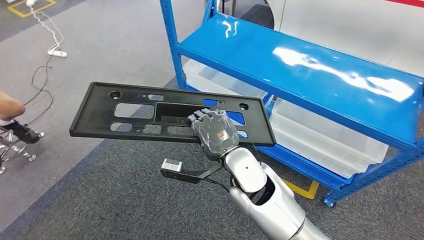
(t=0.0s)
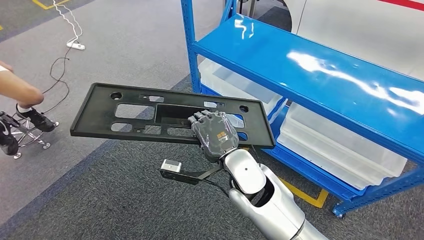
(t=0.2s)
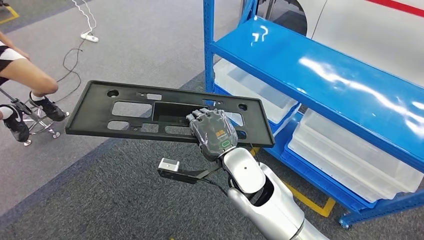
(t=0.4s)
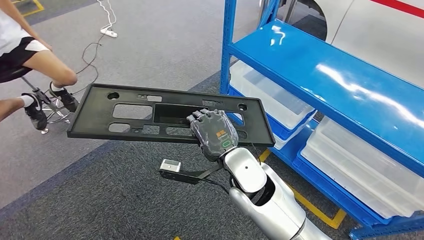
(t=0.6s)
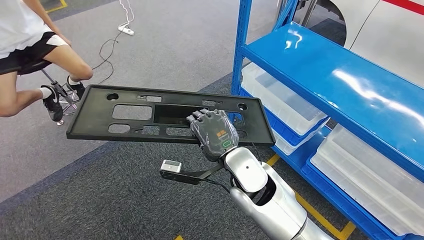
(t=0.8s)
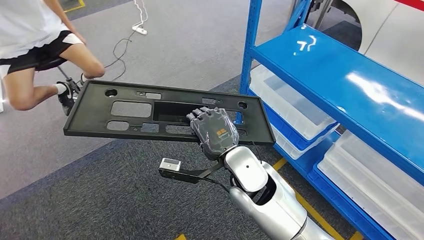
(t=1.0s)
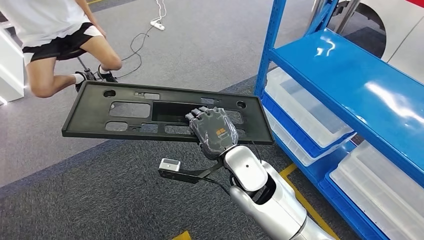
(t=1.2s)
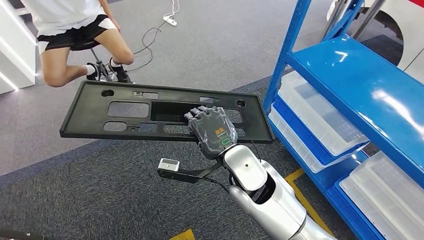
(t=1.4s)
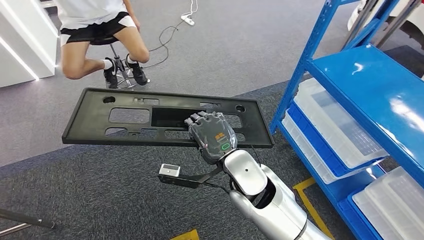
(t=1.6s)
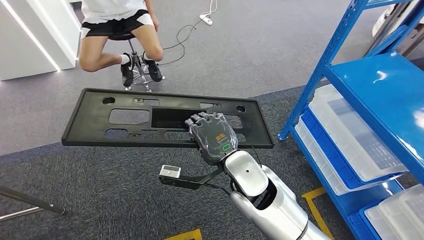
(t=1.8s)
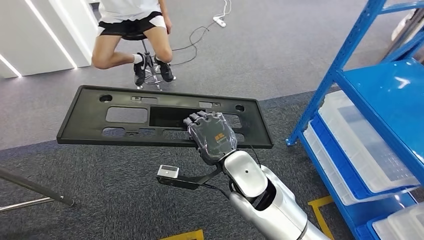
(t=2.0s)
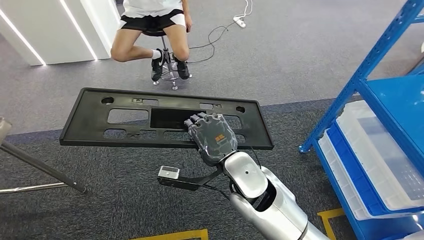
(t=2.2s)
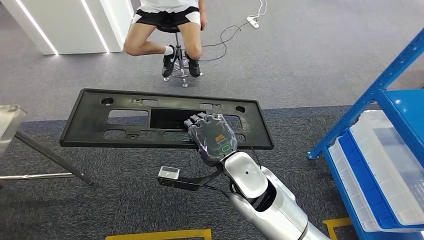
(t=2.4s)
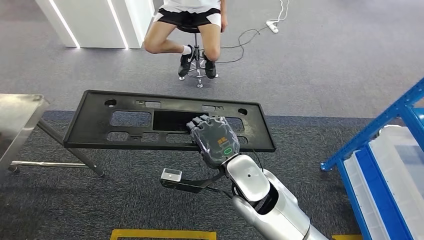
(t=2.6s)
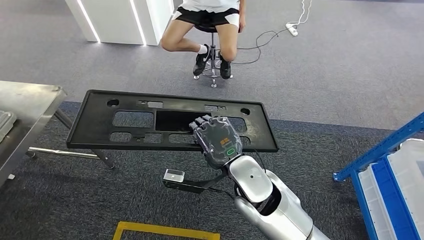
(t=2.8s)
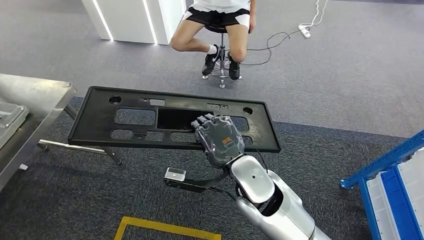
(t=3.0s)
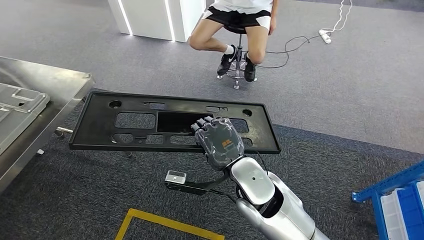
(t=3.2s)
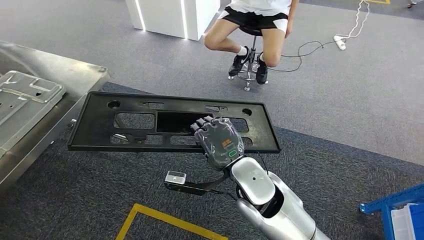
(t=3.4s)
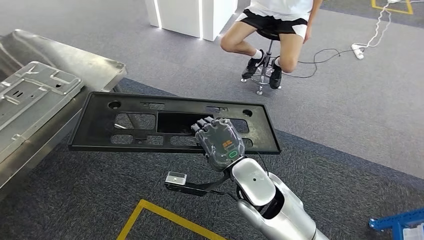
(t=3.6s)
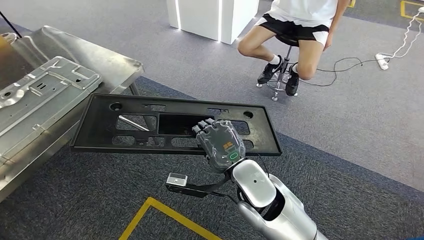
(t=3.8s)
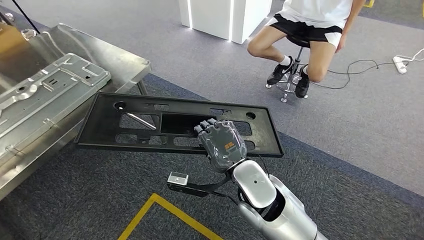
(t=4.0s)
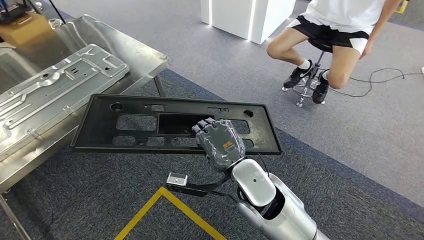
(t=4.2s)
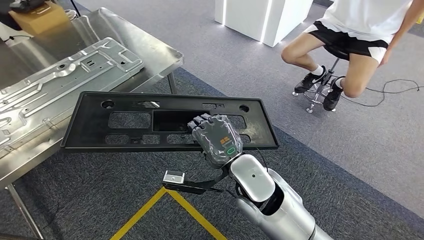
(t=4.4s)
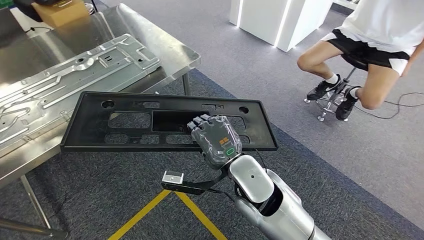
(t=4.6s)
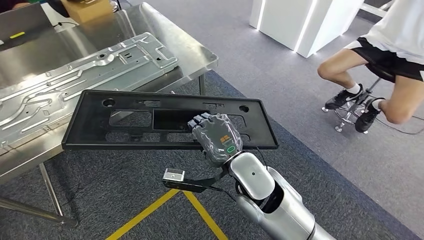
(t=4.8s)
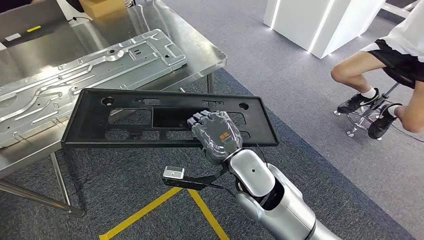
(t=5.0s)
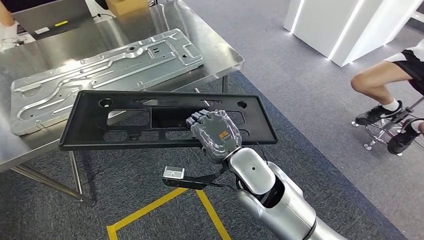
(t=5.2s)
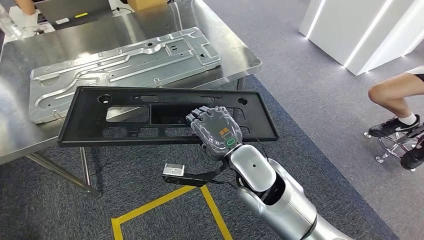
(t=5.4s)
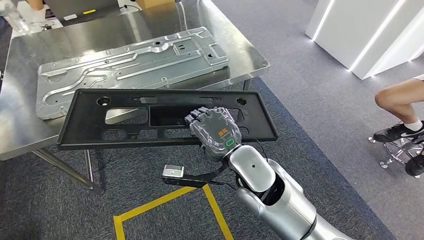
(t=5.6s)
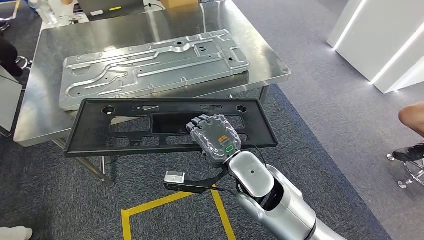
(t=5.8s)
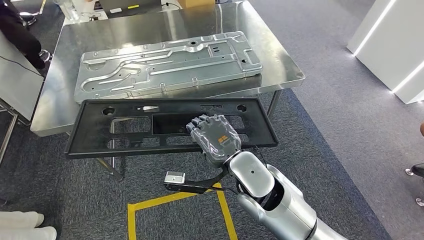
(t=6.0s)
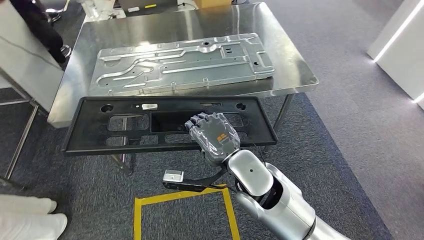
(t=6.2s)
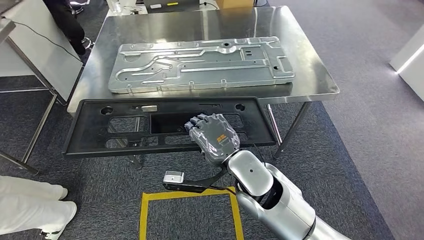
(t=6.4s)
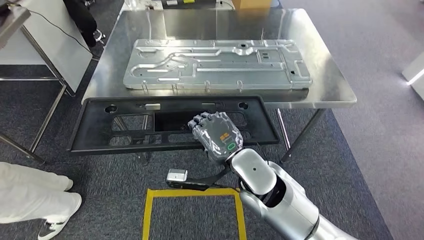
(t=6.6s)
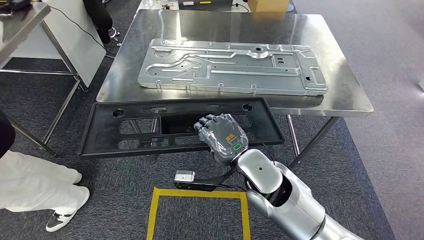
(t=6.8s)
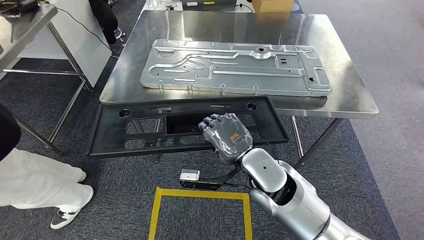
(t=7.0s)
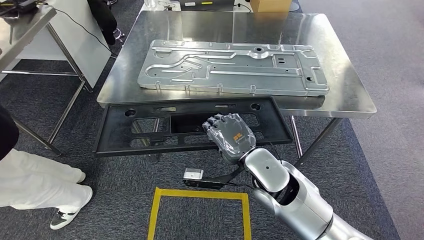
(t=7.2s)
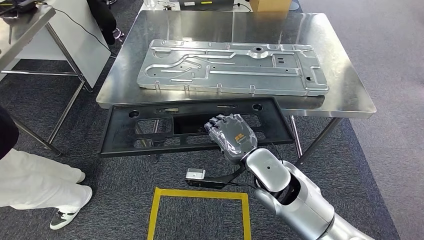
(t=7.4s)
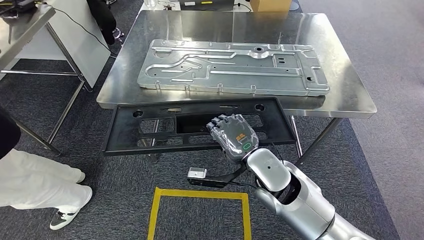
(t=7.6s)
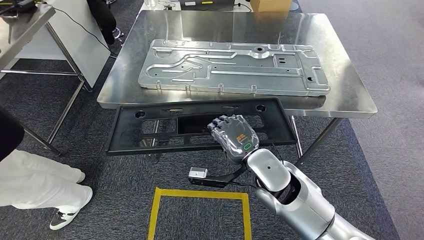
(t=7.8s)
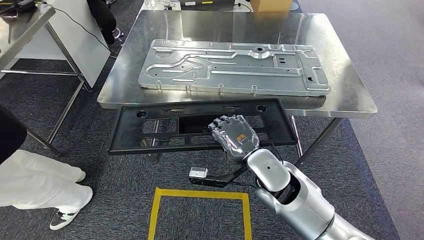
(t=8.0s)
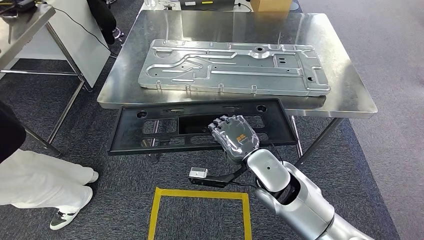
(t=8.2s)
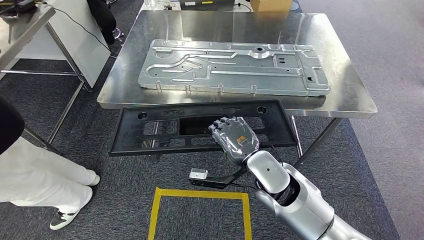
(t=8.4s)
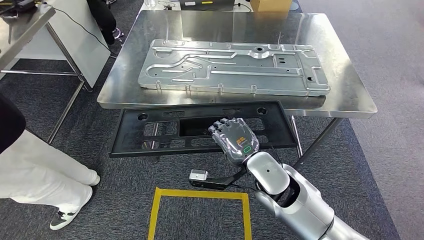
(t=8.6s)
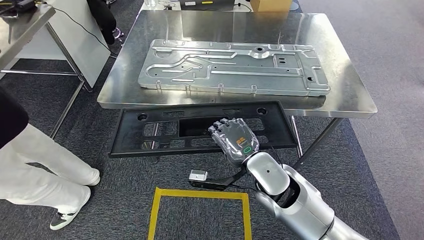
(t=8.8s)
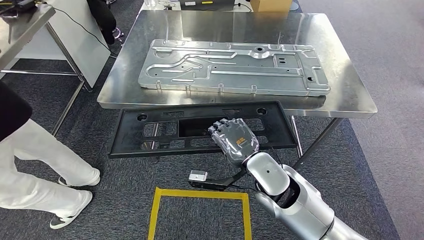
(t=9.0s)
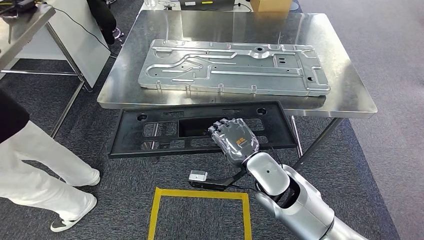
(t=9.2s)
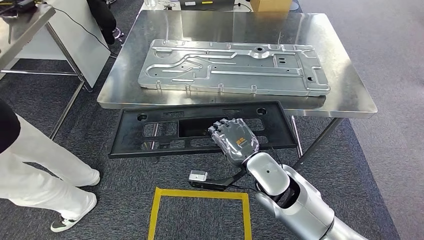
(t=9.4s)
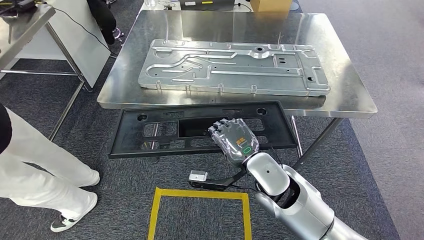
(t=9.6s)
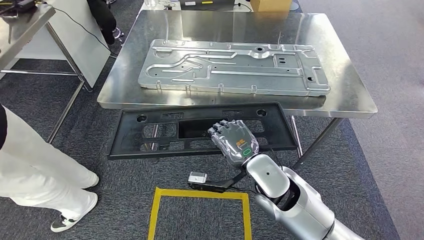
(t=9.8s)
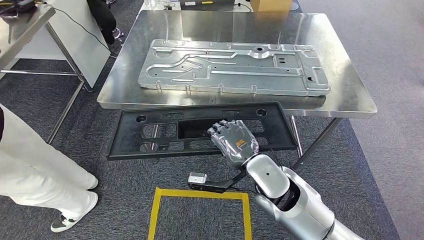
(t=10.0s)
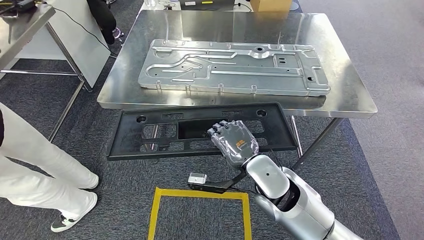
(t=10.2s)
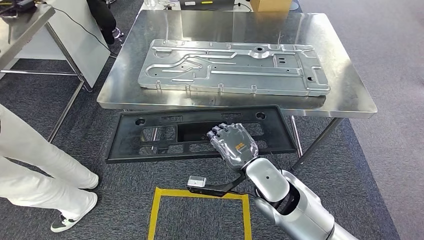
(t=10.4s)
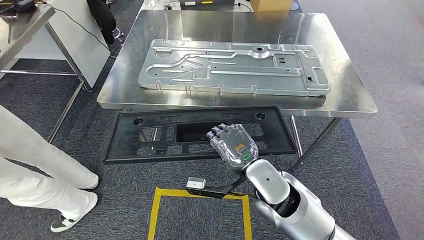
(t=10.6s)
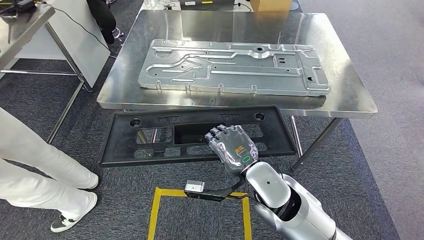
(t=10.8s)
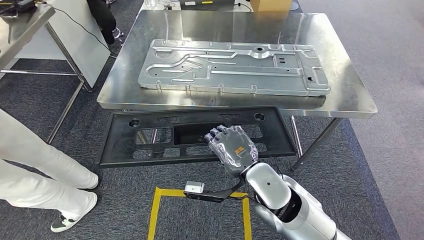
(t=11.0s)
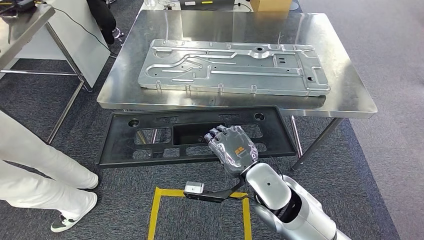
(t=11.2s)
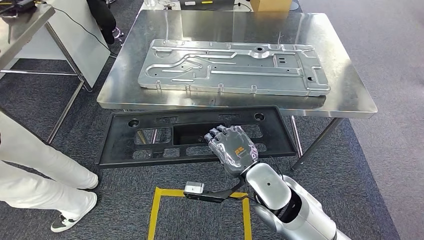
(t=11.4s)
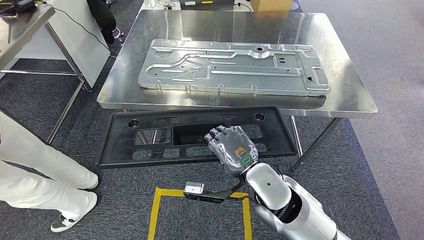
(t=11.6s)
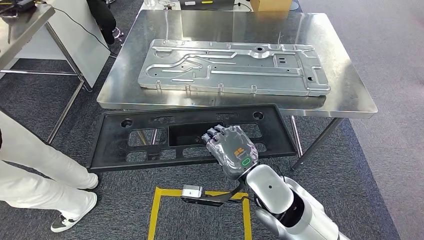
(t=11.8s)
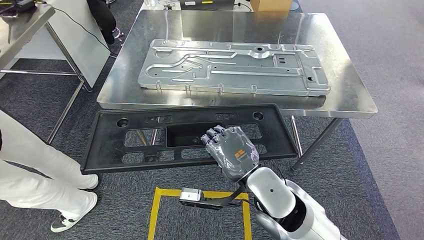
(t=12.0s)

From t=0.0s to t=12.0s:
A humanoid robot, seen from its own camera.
From t=7.6s to t=9.0s: Both hands stay about where they are.
From t=9.0s to t=10.4s: Both hands stay about where they are.
From t=10.4s to t=12.0s: There are only small adjustments of the hands.

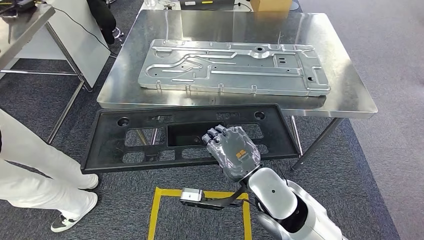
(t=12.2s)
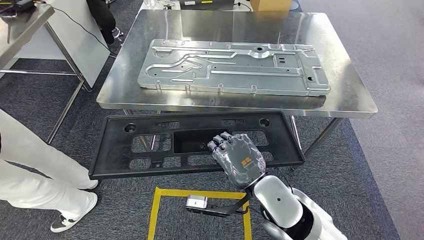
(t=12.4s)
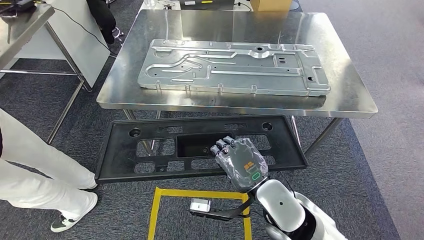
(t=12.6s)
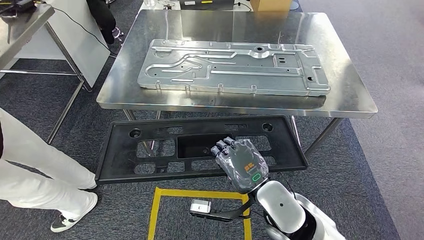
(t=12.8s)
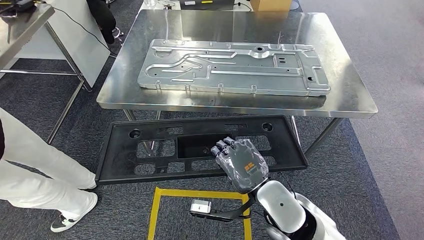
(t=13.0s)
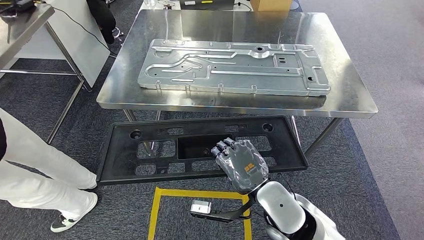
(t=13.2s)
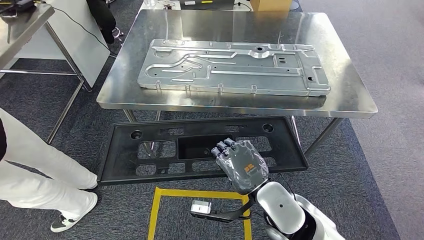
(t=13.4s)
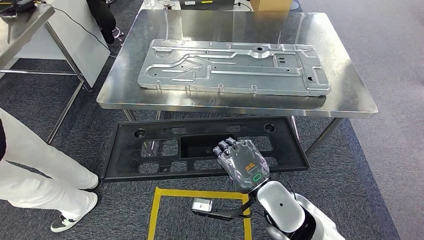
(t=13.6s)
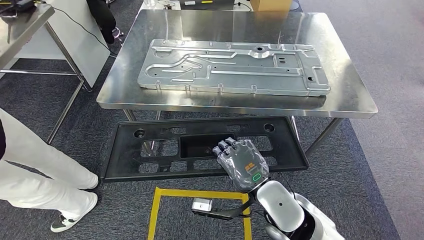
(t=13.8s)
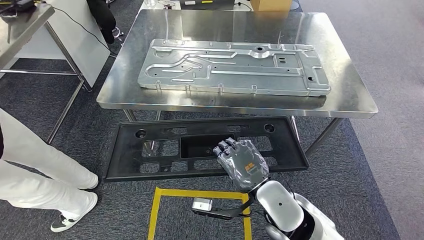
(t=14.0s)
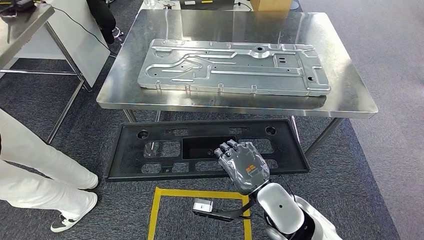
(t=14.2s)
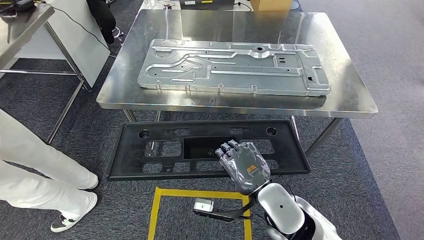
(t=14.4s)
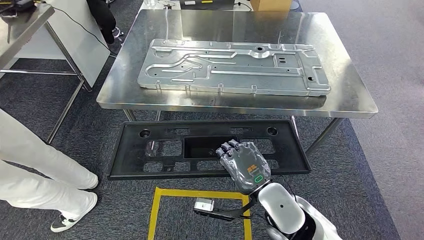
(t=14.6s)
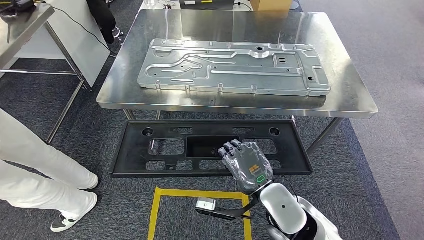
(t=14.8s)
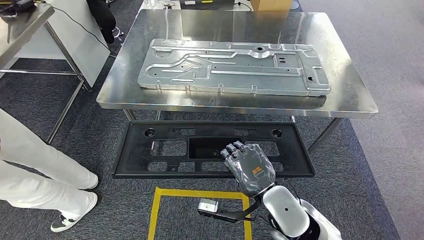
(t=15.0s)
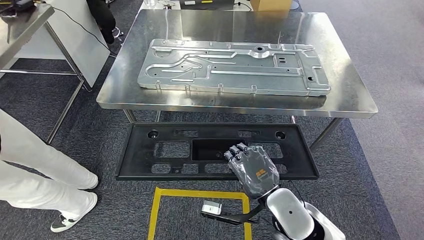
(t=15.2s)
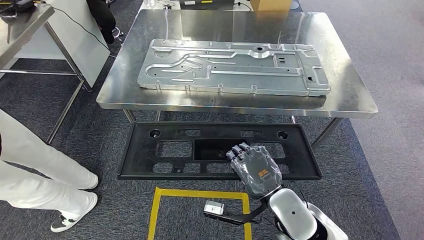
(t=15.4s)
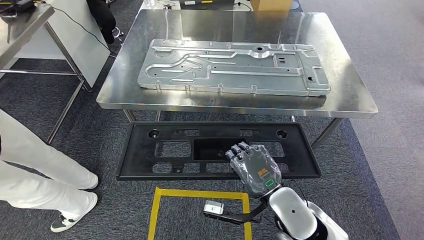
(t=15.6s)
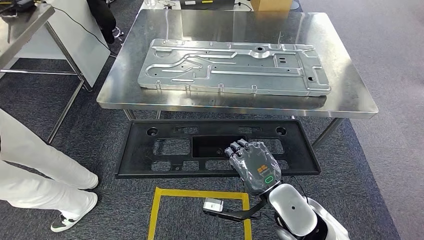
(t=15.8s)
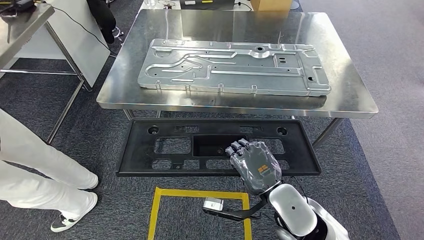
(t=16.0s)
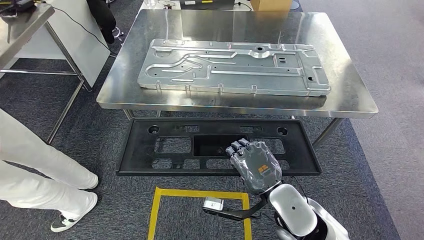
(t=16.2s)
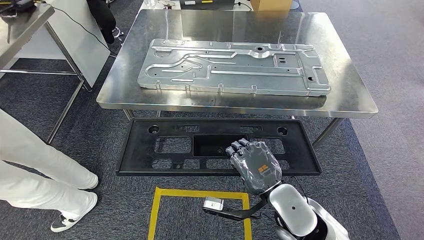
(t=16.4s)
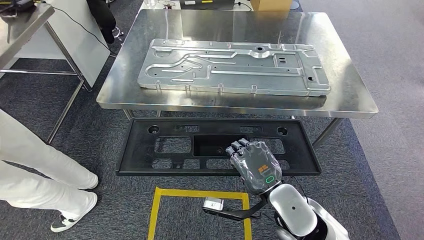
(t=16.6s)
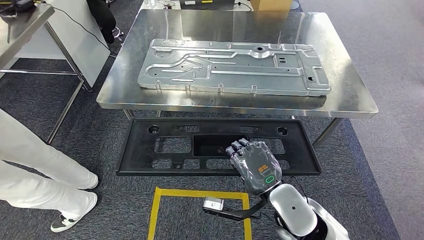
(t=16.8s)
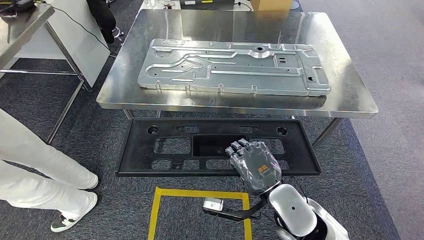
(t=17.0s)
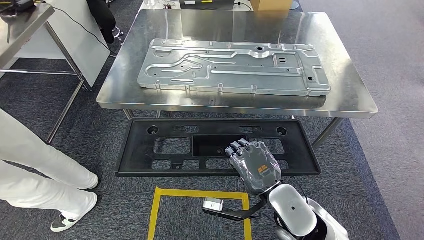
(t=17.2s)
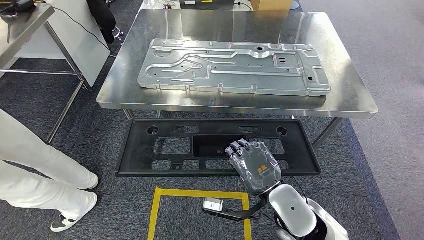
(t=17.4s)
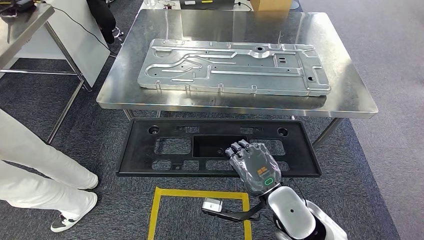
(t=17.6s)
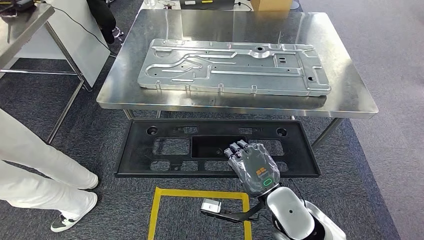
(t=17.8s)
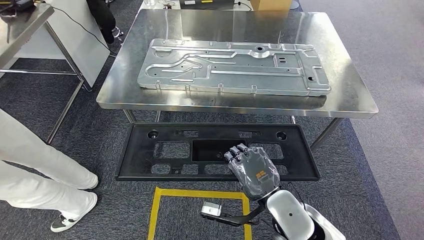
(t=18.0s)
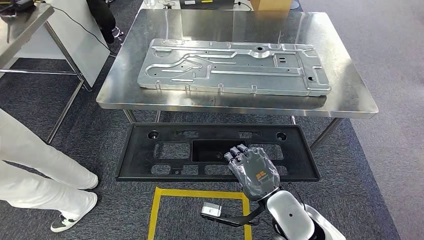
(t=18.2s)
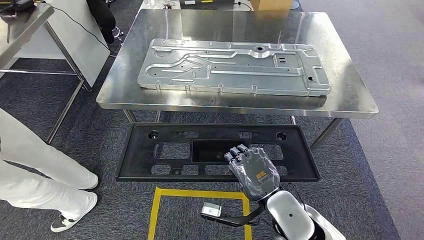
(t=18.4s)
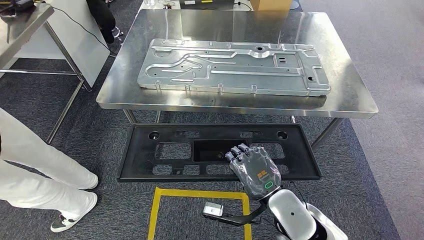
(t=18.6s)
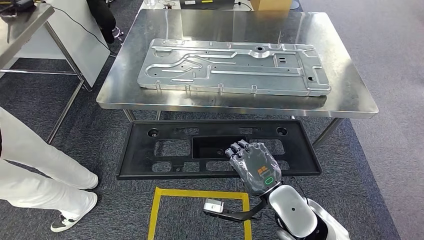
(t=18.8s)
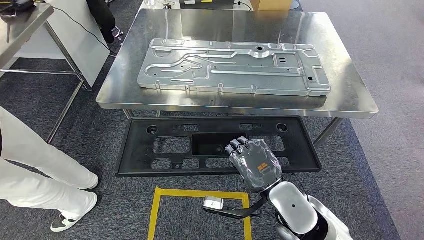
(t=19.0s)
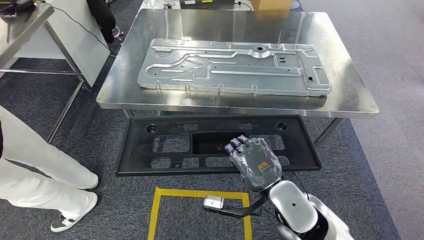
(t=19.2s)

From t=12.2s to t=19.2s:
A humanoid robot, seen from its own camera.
From t=12.2s to t=15.0s: The hands move only a little.
From t=15.0s to t=17.8s: The two hands keep their place.
From t=17.8s to t=19.2s: There are only small adjustments of the hands.